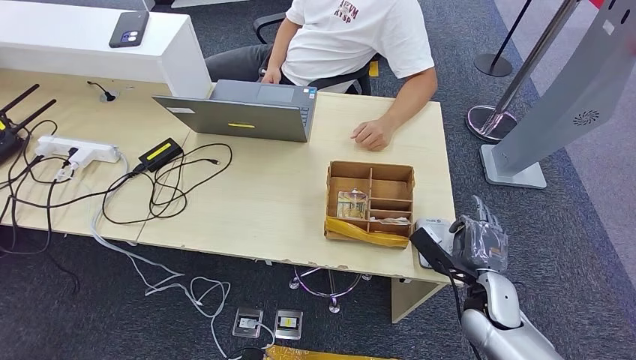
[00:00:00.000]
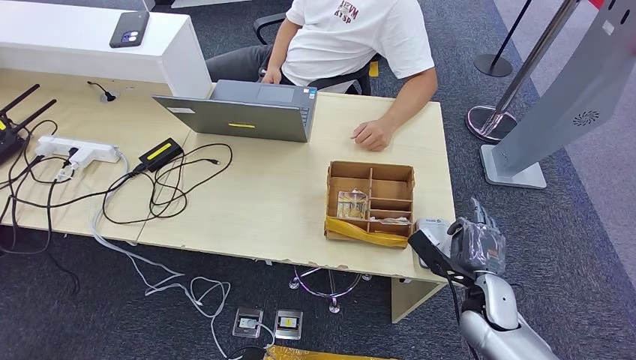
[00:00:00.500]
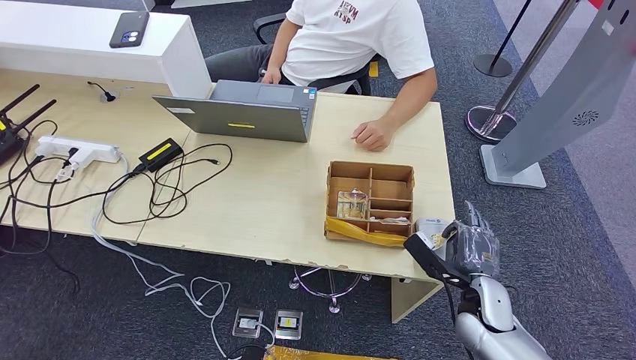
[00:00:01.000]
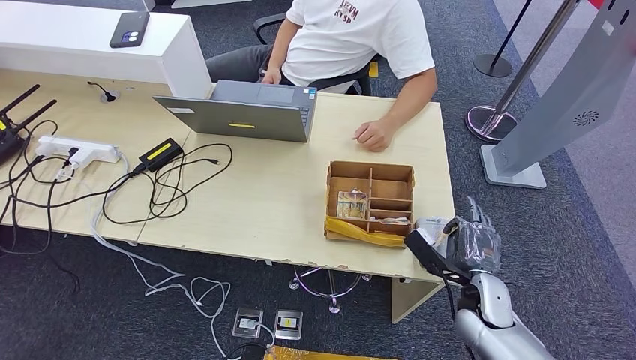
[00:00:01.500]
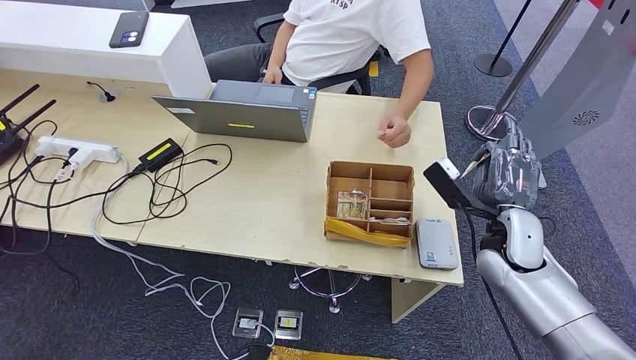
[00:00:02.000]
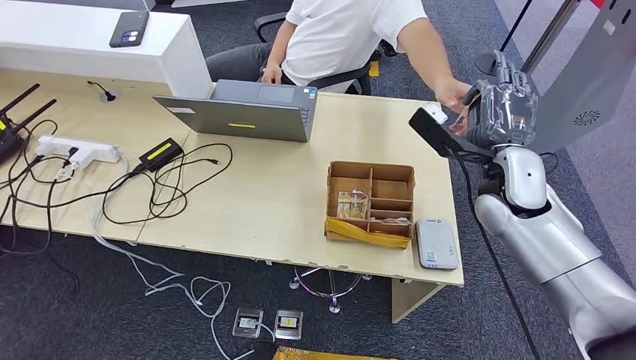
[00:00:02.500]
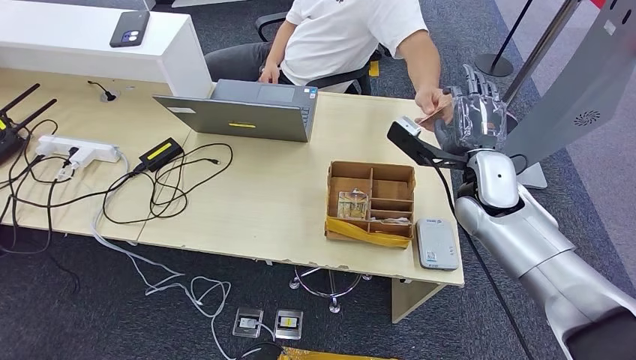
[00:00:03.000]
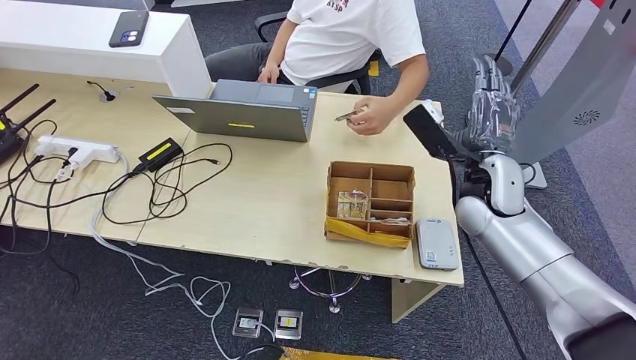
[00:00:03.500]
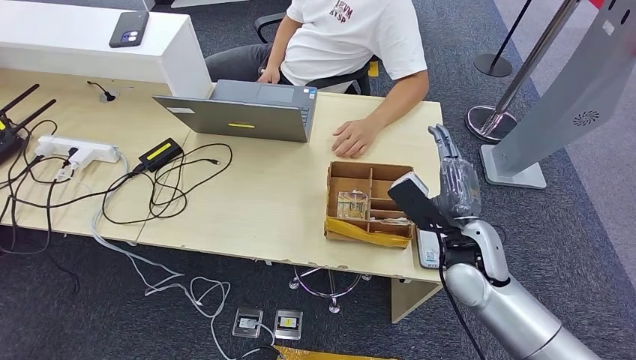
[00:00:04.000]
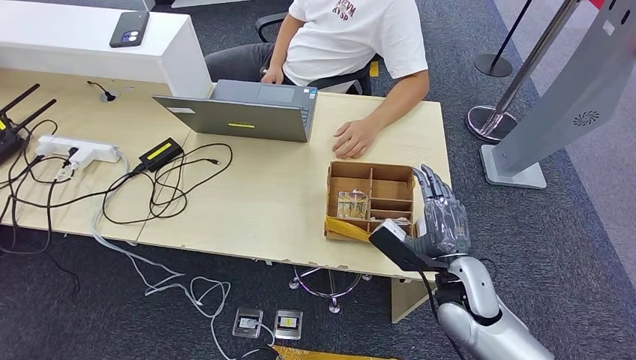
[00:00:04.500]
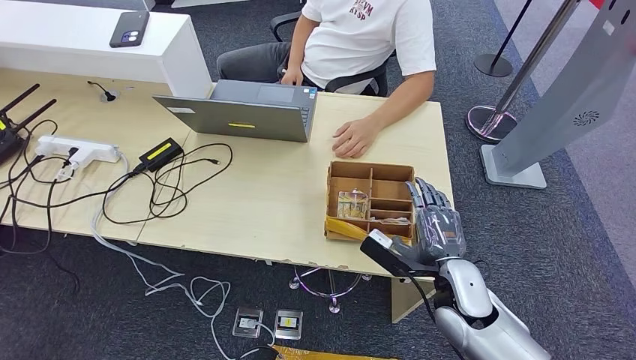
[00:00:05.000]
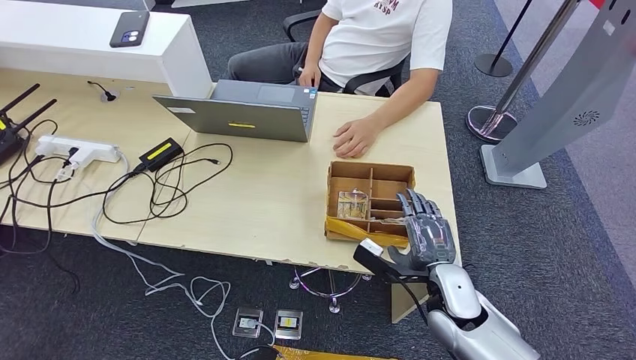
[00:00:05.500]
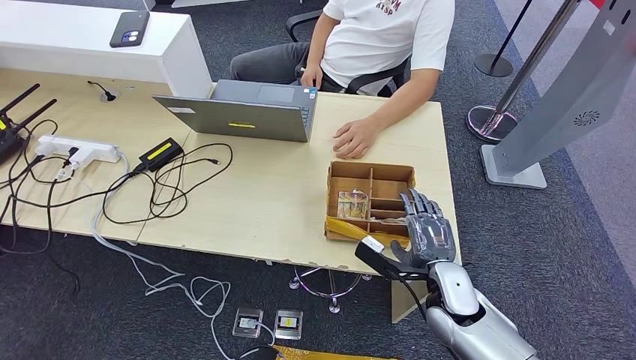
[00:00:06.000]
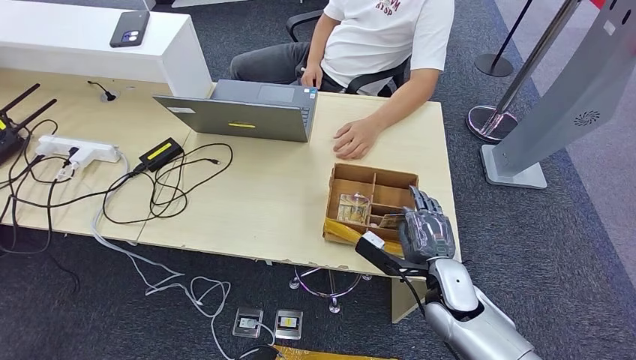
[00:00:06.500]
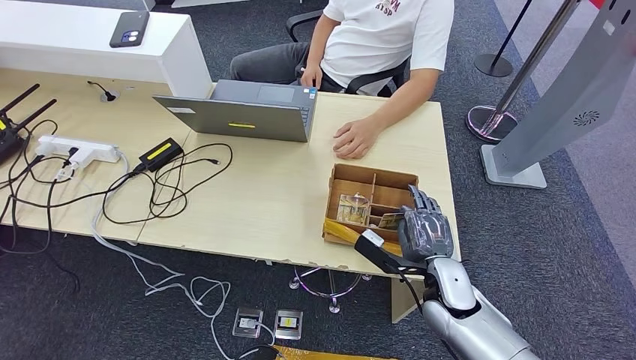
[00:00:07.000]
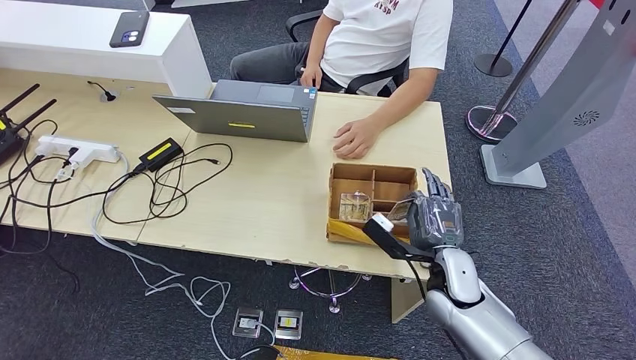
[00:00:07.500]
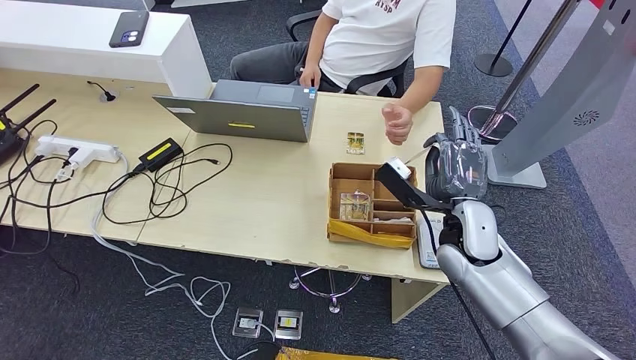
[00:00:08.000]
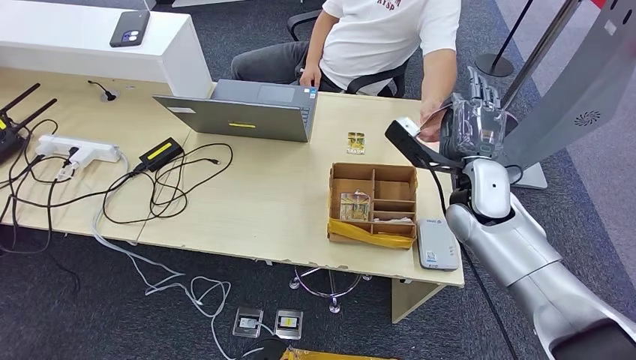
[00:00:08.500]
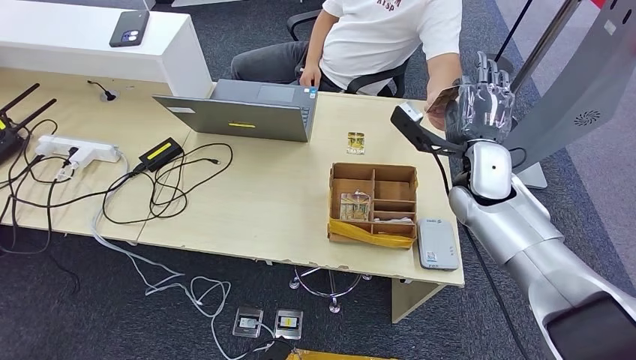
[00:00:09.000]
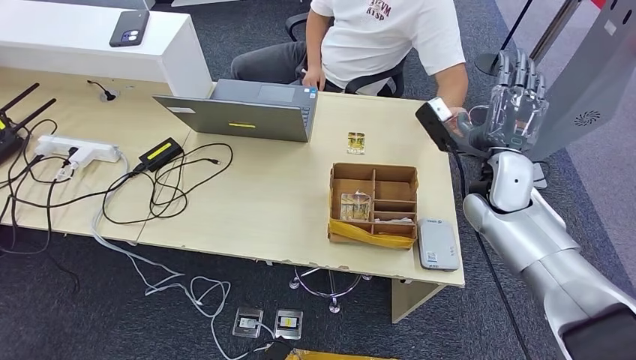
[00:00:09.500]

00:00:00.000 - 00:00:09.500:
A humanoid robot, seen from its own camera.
Step, 00:00:02.000 - 00:00:03.500: Hand the ID card to the person.
Step, 00:00:05.000 - 00:00:08.000: Pick up the room key from the key card box.
Step, 00:00:08.500 - 00:00:09.500: Hand the room key to the person.
00:00:00.000 - 00:00:02.000: The right hand heads upward and forward, covering roughly 15 cm.
00:00:02.000 - 00:00:04.000: The right hand moves to the left, about 5 cm, and goes upward and returns, roughly 10 cm each way.
00:00:04.000 - 00:00:05.500: The right hand is displaced downward by roughly 10 cm.
00:00:05.500 - 00:00:07.500: The hands make only small movements.
00:00:07.500 - 00:00:09.500: The right hand travels upward and forward by some 20 cm.

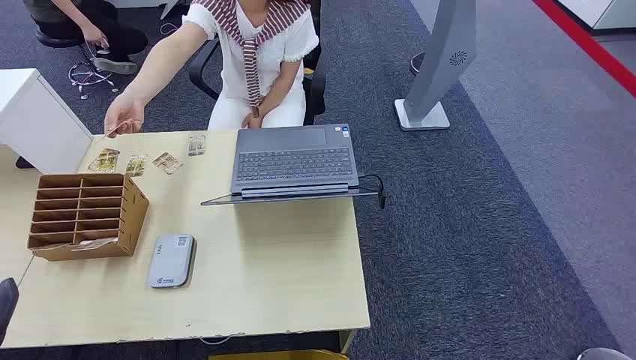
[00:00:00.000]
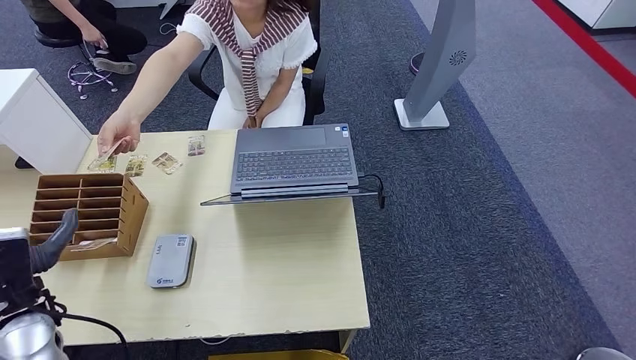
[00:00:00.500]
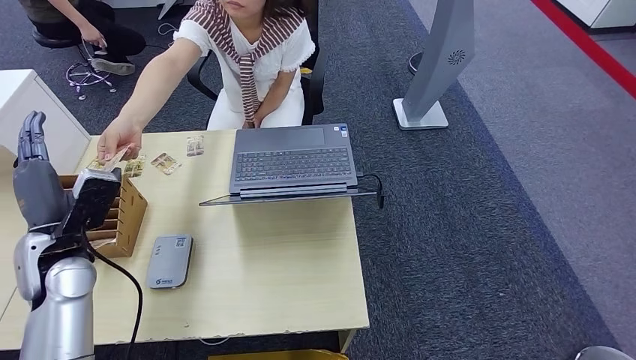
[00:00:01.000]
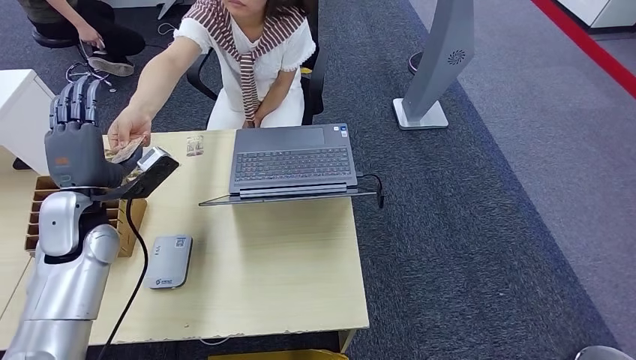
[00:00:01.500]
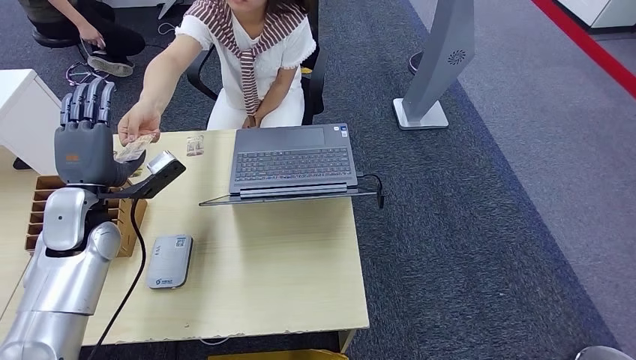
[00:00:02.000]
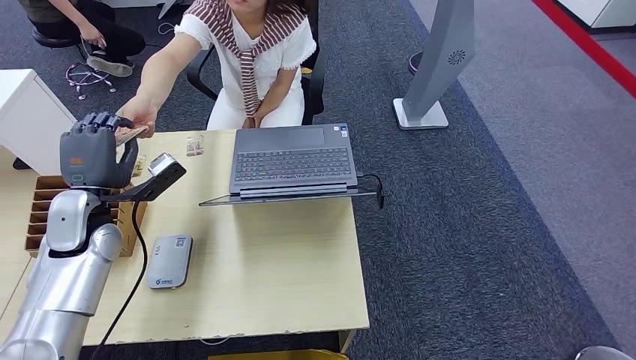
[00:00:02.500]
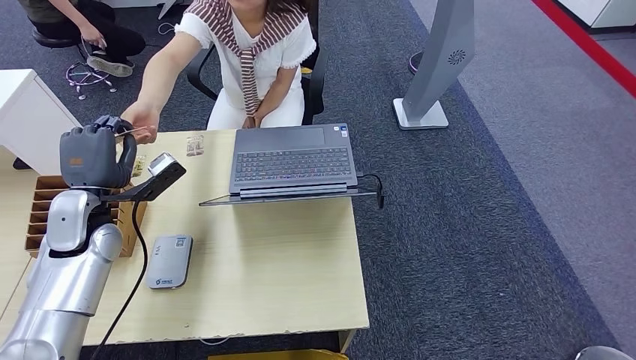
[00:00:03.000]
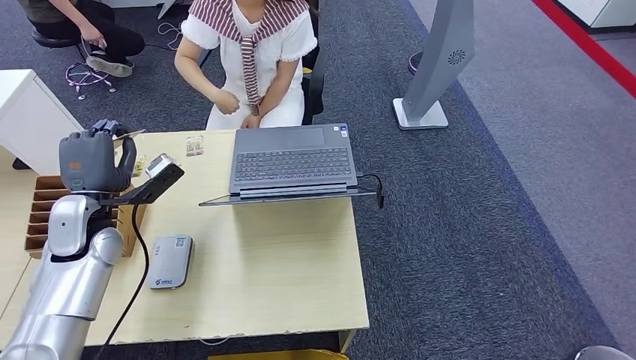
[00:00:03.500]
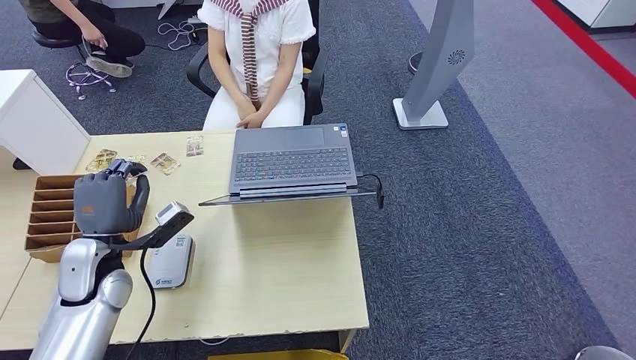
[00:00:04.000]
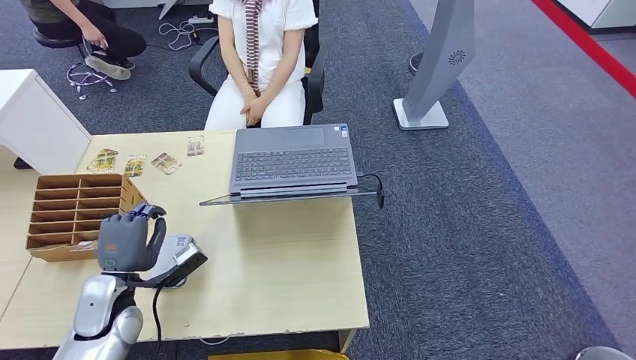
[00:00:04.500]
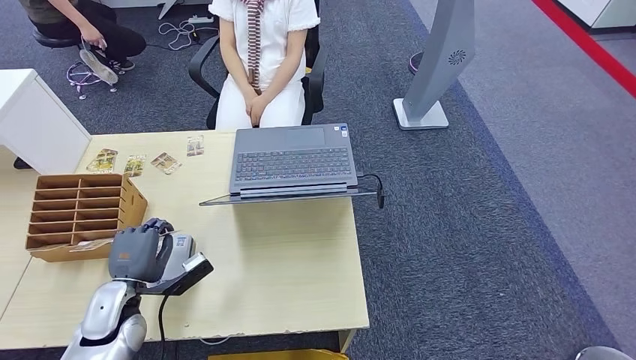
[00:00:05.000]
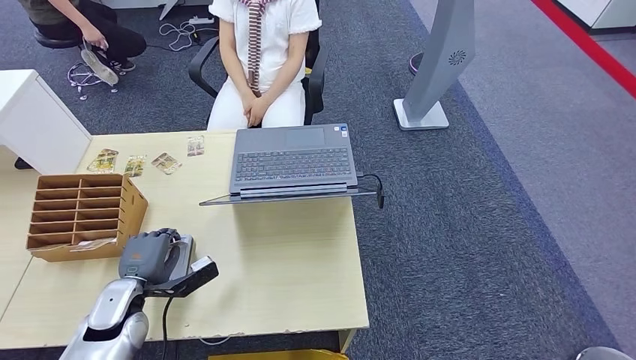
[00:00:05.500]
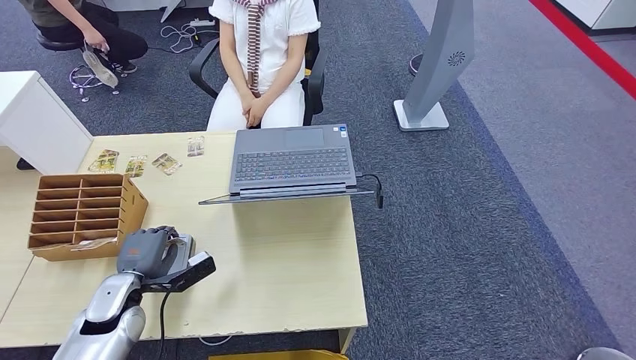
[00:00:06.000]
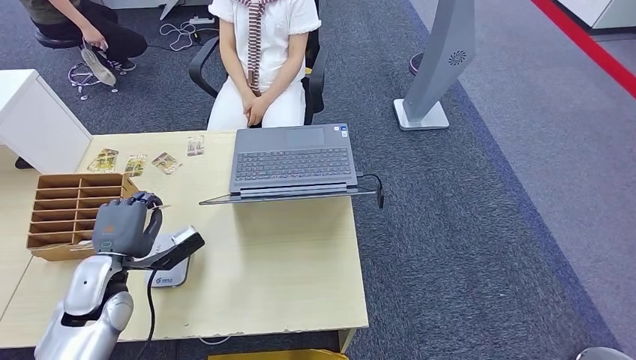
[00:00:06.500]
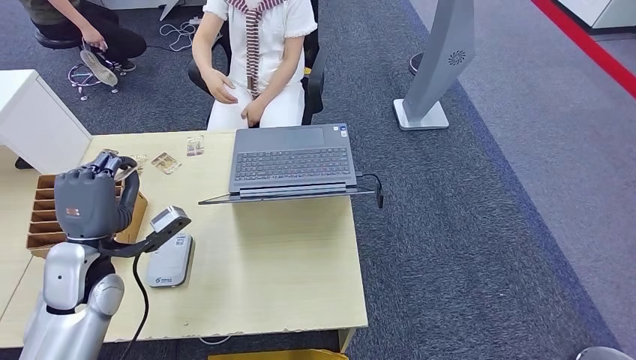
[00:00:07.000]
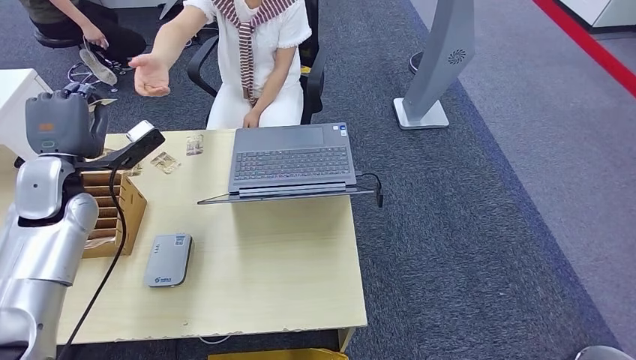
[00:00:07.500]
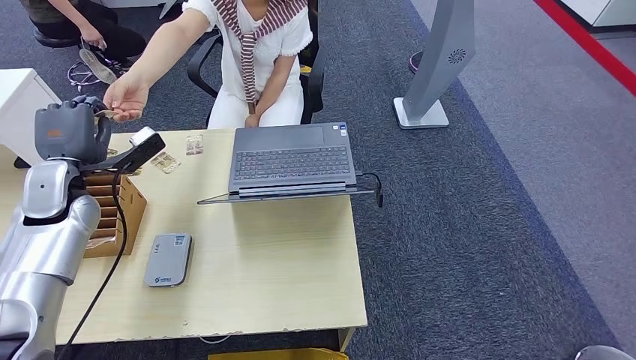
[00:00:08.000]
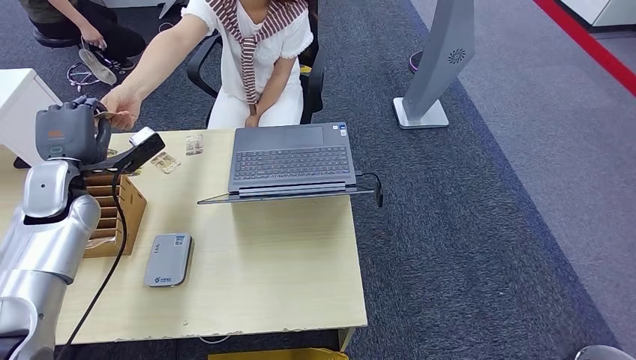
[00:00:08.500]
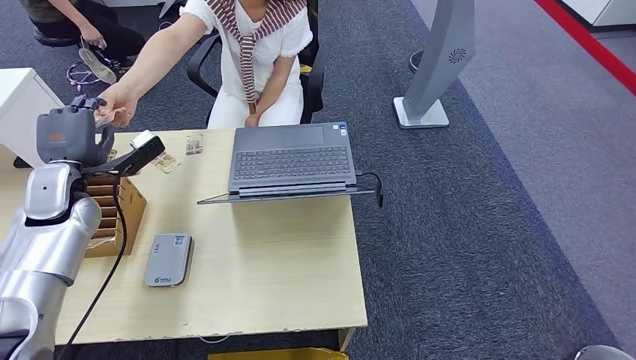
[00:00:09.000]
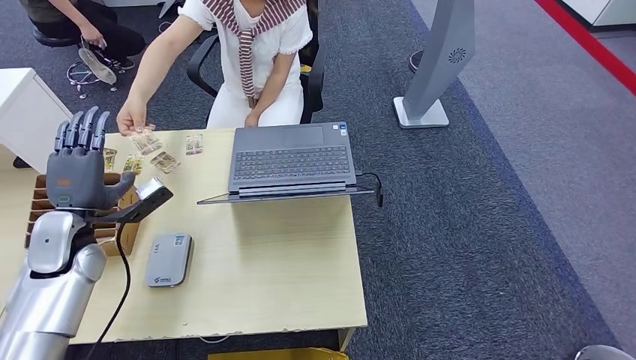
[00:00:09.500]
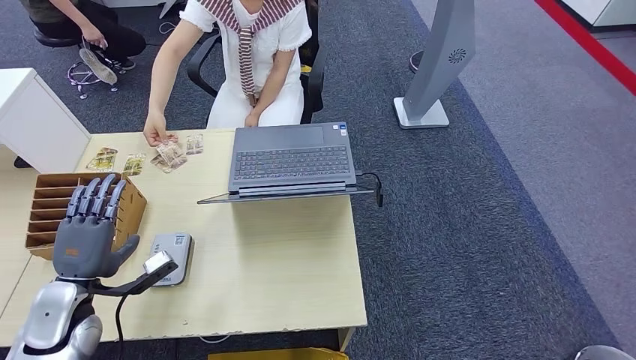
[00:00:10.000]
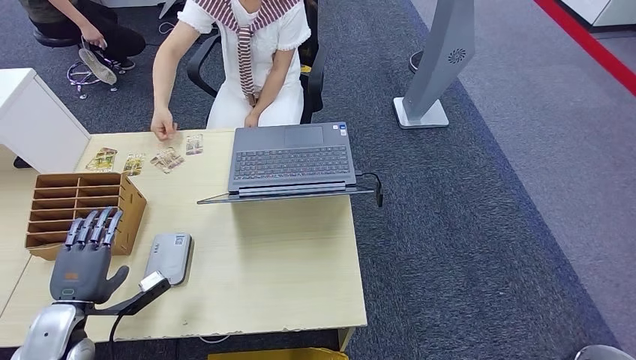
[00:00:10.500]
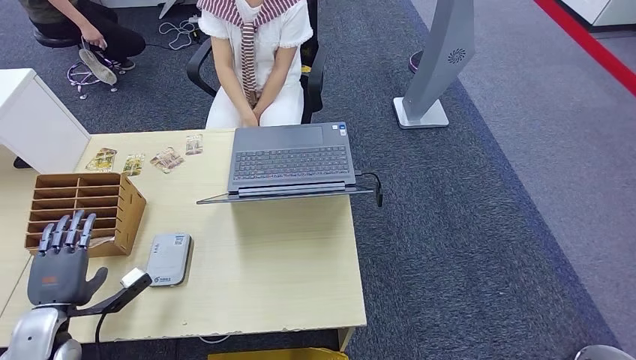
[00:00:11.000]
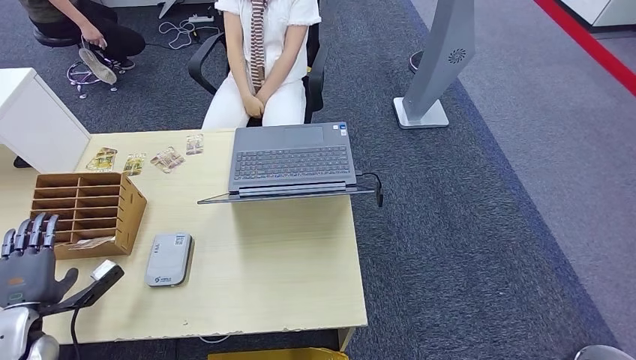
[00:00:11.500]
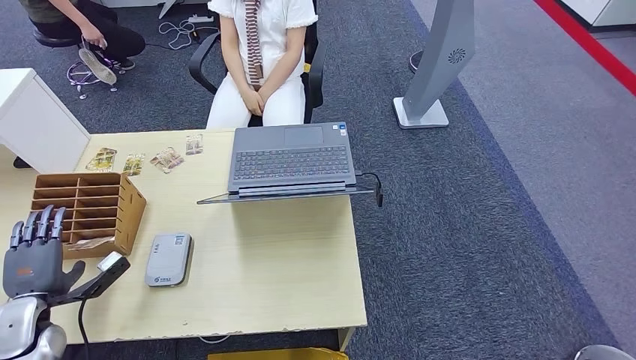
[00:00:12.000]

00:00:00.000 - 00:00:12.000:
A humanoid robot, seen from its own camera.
Step, 00:00:00.000 - 00:00:03.500: Take the ID card from the person's hand.
Step, 00:00:04.000 - 00:00:05.500: Place the ID card on the card reader.
Step, 00:00:06.000 - 00:00:09.000: Hand the ID card to the person.
00:00:02.000 - 00:00:04.000: The left hand heads downward, covering about 5 cm.
00:00:04.000 - 00:00:06.000: The left hand travels downward and backward by some 10 cm.
00:00:08.000 - 00:00:10.000: The left hand moves backward and downward, some 20 cm.
00:00:10.000 - 00:00:12.000: The left hand shifts approximately 10 cm to the left.
